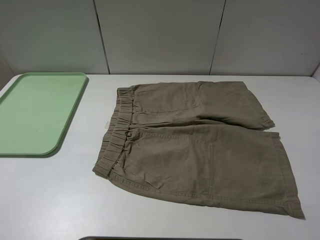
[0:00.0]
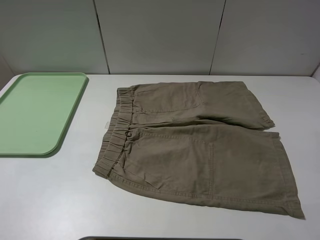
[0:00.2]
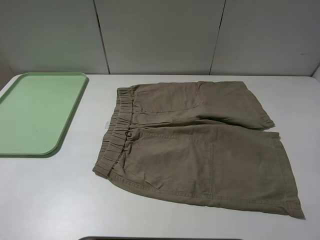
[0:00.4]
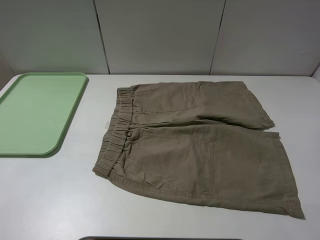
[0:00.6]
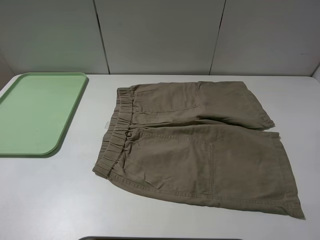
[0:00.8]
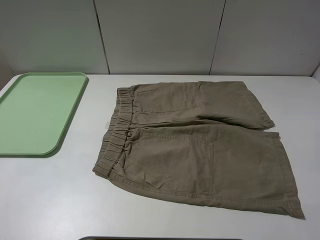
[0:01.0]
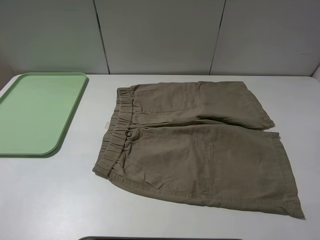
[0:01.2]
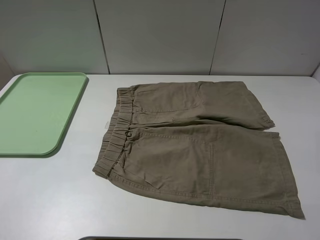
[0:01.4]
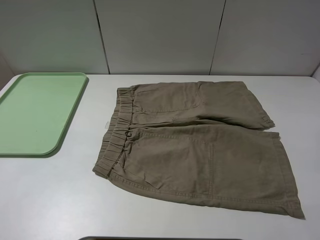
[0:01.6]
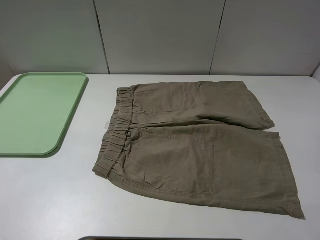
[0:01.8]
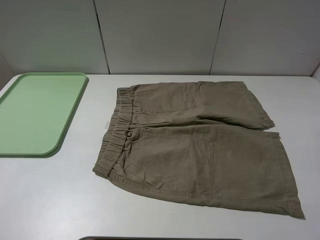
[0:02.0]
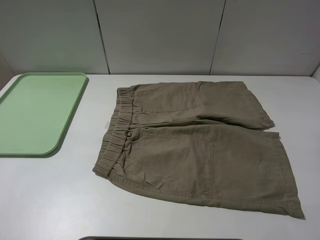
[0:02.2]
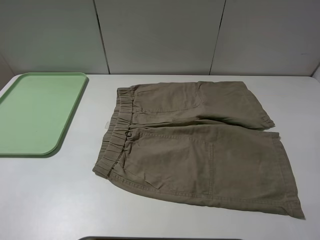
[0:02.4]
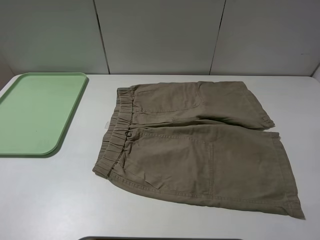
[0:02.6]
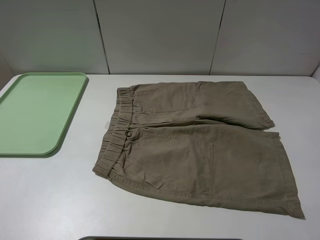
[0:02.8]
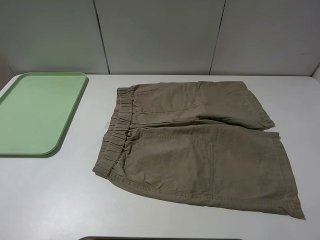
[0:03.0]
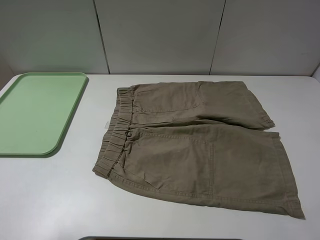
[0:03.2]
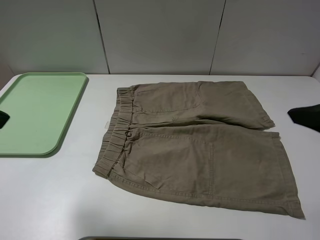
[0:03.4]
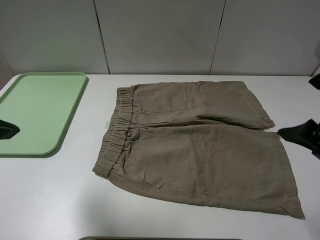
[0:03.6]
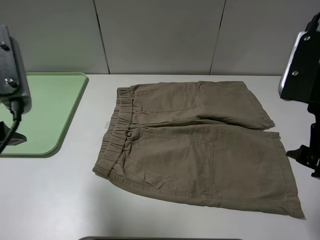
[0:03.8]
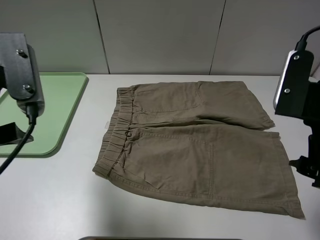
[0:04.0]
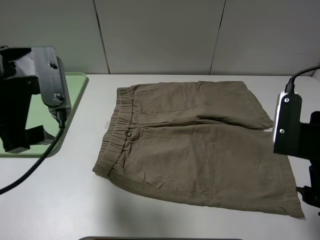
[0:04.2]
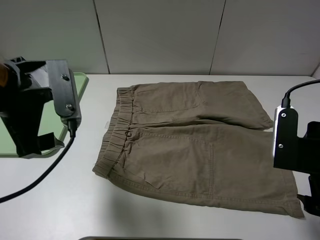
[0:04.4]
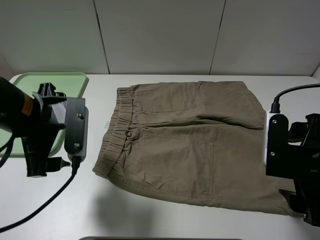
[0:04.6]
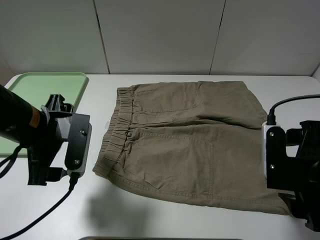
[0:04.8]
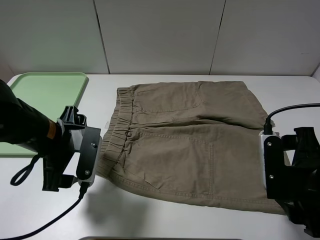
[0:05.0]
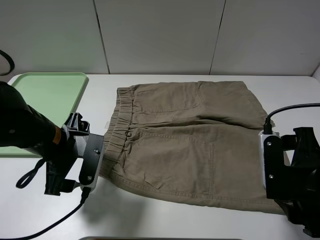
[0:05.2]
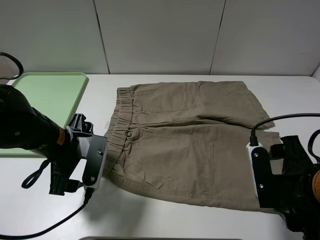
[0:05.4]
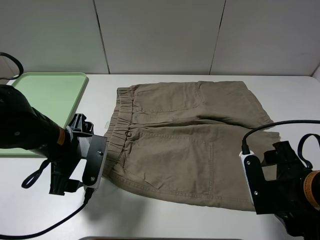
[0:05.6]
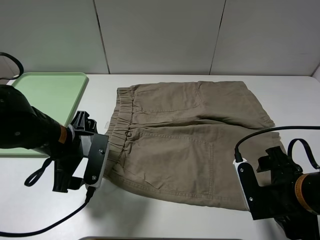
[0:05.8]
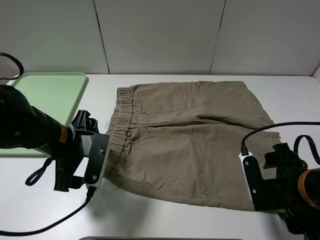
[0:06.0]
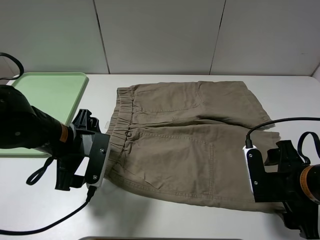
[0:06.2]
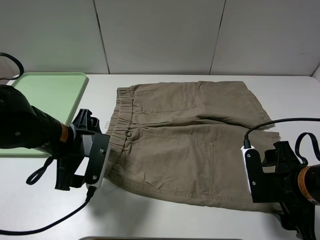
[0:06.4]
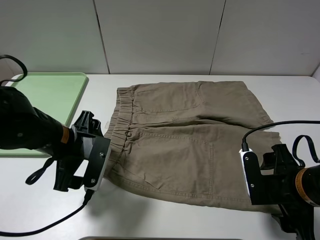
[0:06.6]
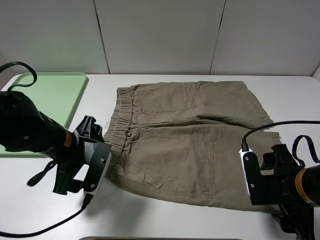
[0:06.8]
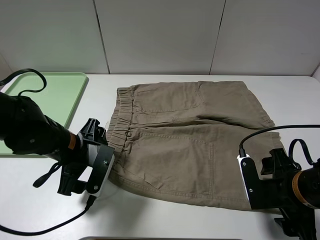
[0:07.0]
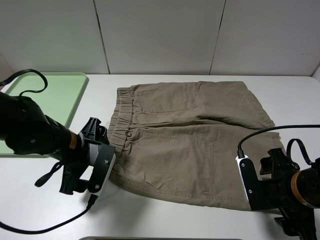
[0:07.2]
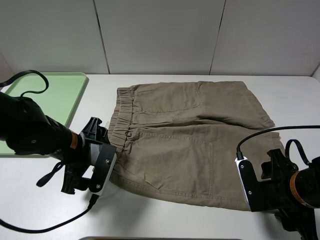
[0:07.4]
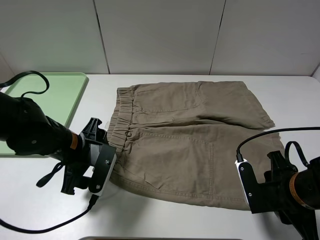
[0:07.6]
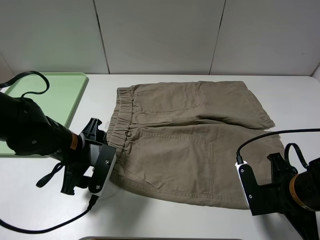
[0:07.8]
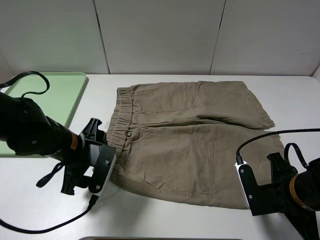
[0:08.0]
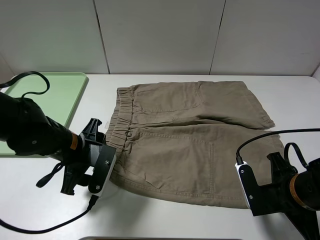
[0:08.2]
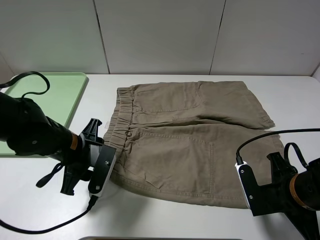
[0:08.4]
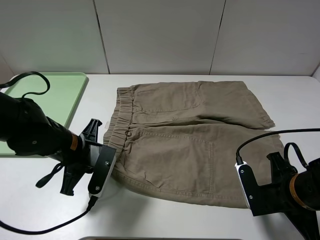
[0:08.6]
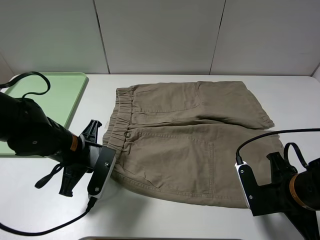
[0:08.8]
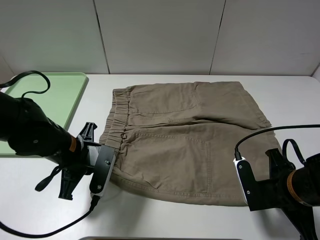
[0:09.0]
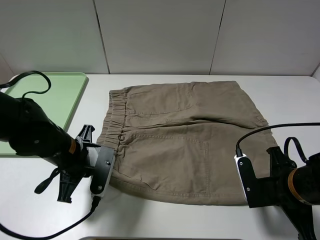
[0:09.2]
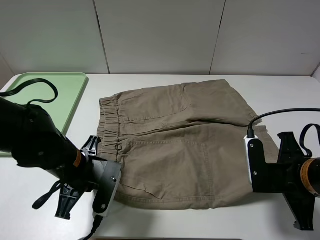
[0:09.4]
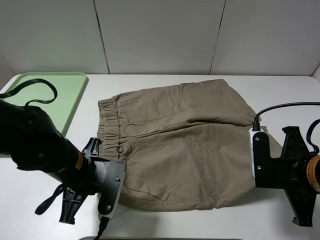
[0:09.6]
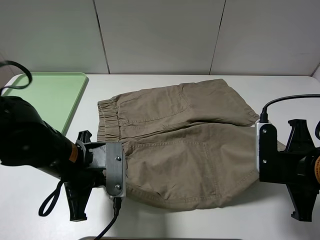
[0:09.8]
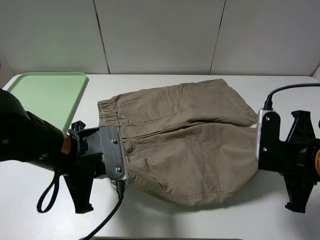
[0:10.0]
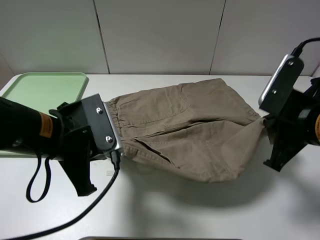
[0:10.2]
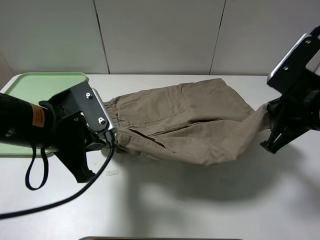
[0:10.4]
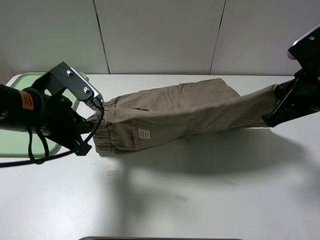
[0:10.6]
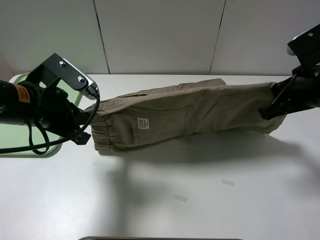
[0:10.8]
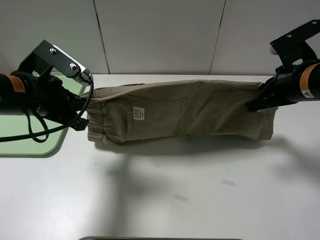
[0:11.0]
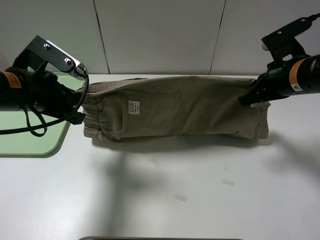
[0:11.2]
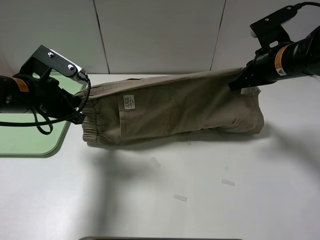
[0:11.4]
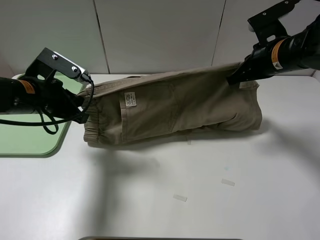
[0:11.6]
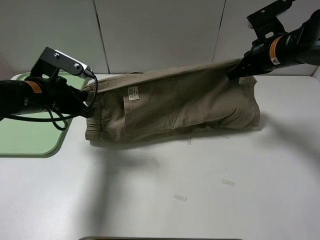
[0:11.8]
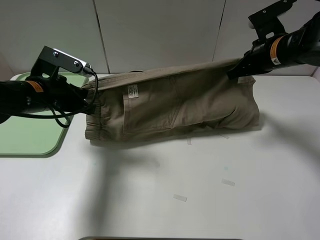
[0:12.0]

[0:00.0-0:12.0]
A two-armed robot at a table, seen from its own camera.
Task of the whole recording: fold the khaki jeans in half with two grippers, then fold them in half again, and use the left claw to place the folded fold khaki jeans on the tray.
Step, 0:00.0 to 0:08.0: Grasp the khaki trousers with the right gripper.
Step, 0:08.2 to 0:08.8: Grasp the khaki trousers with the left gripper.
0:00.0 to 0:01.6: Both grippers stay put.
0:03.0 to 0:04.4: The right gripper is displaced downward and forward by some 15 cm. Meanwhile the left gripper travels forward, to the right and downward by about 20 cm.
0:04.4 to 0:06.0: The right gripper heads downward, covering roughly 5 cm. The left gripper is displaced downward by roughly 10 cm.
0:06.0 to 0:07.6: The right gripper closes its fingers.
0:07.6 to 0:09.0: The right gripper closes. Meanwhile the left gripper closes.
0:09.0 to 0:10.4: The left gripper is displaced upward by about 10 cm; the right gripper travels upward and forward by about 15 cm.
0:10.4 to 0:12.0: The right gripper heads forward, covering some 15 cm. Meanwhile the left gripper is displaced forward and to the left by some 10 cm.

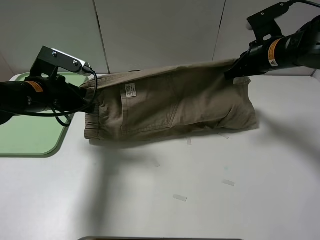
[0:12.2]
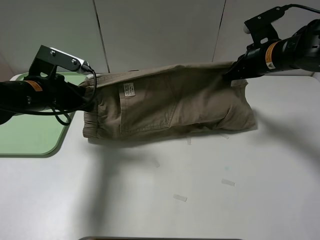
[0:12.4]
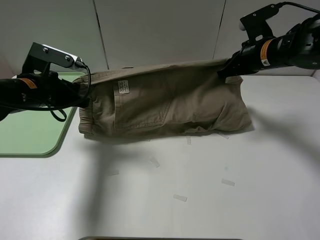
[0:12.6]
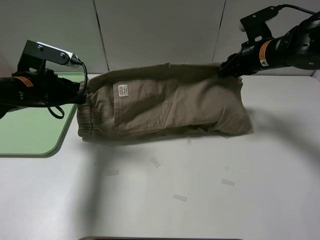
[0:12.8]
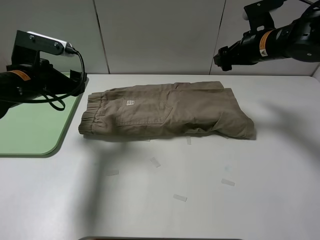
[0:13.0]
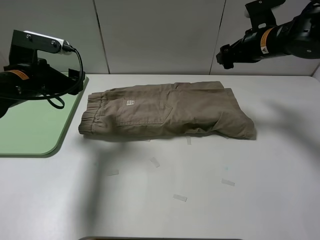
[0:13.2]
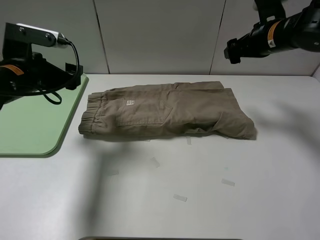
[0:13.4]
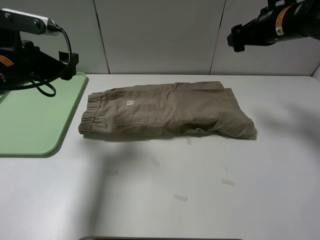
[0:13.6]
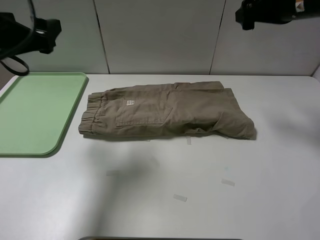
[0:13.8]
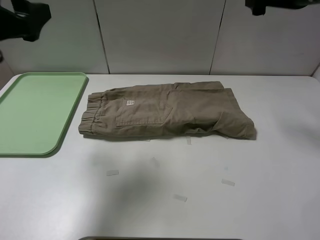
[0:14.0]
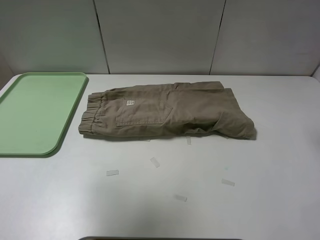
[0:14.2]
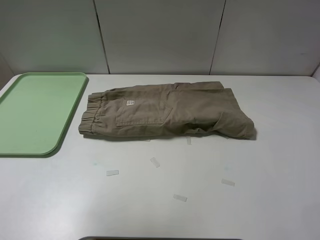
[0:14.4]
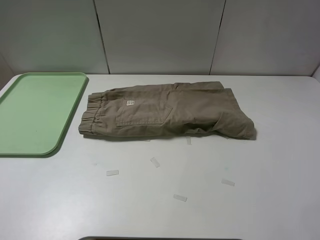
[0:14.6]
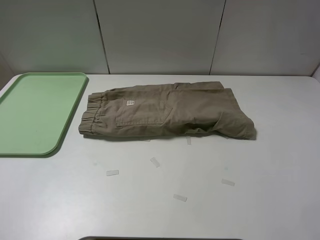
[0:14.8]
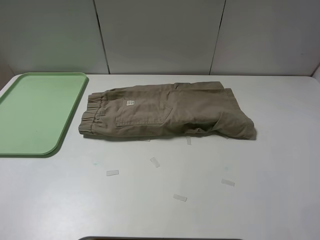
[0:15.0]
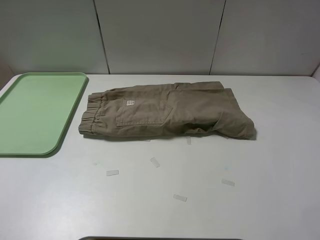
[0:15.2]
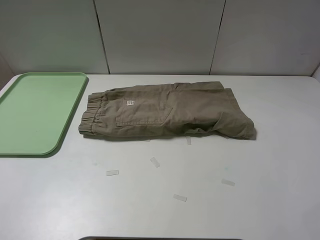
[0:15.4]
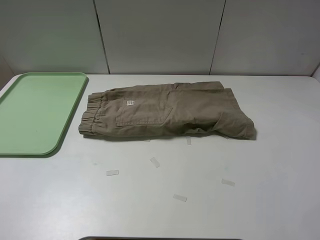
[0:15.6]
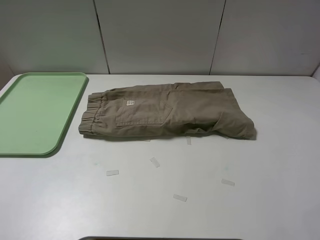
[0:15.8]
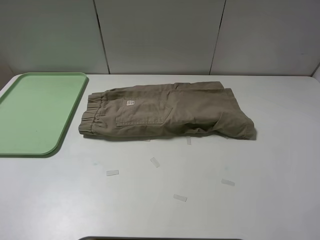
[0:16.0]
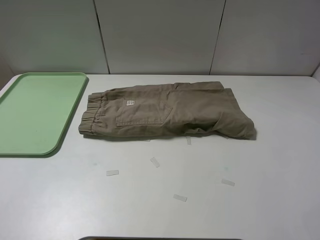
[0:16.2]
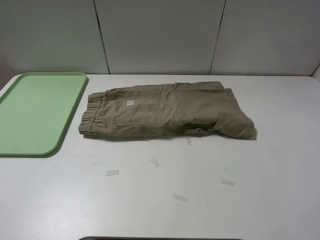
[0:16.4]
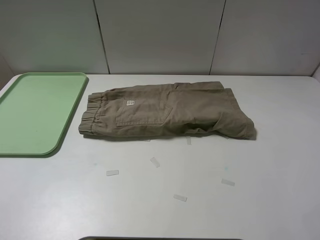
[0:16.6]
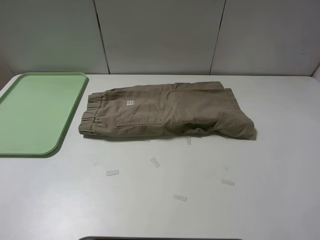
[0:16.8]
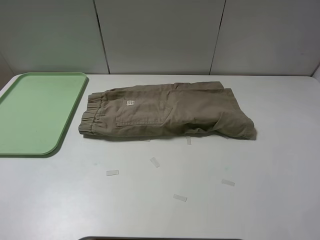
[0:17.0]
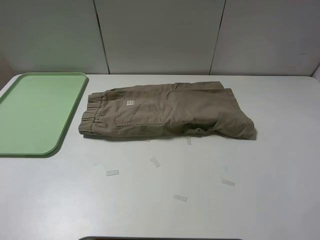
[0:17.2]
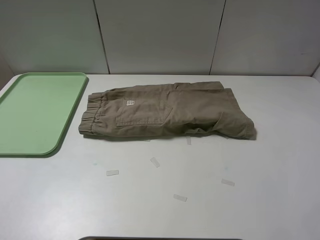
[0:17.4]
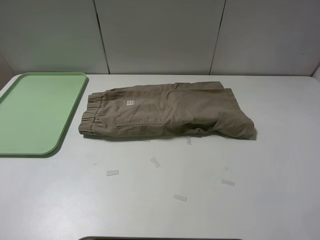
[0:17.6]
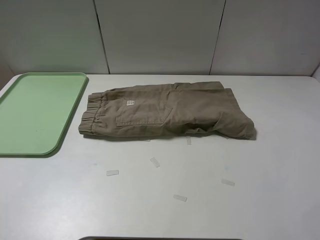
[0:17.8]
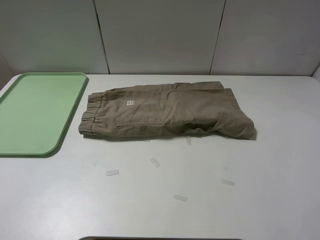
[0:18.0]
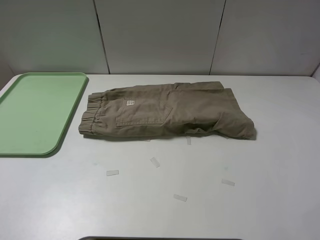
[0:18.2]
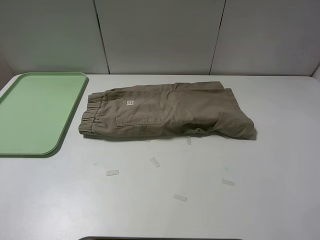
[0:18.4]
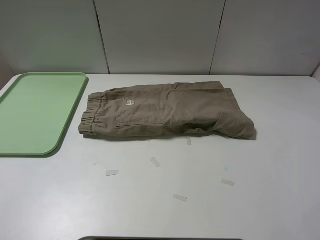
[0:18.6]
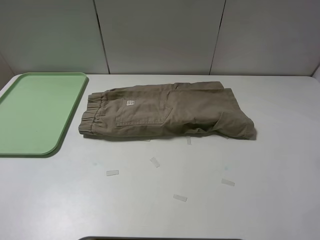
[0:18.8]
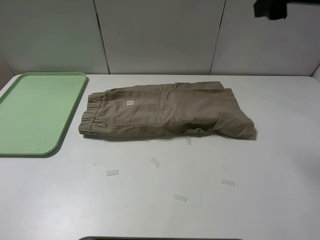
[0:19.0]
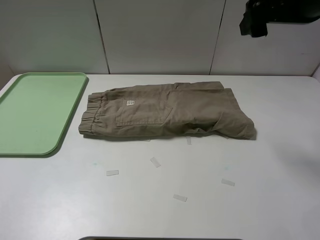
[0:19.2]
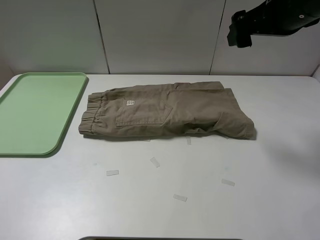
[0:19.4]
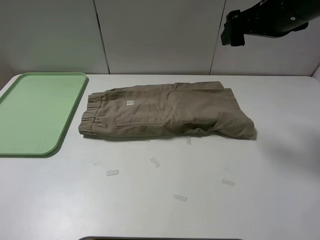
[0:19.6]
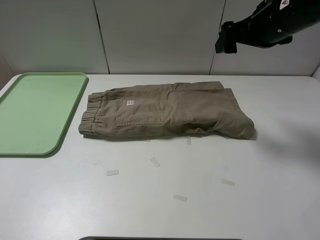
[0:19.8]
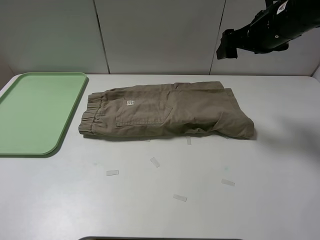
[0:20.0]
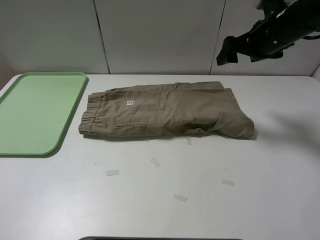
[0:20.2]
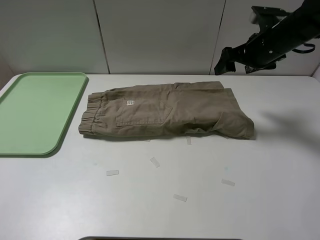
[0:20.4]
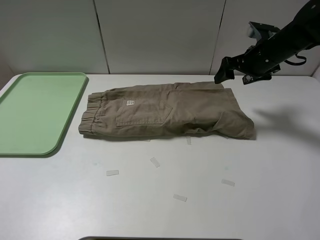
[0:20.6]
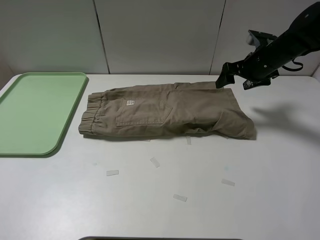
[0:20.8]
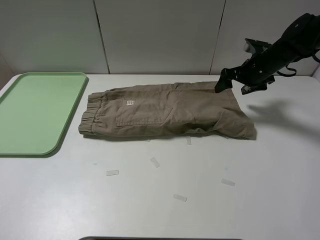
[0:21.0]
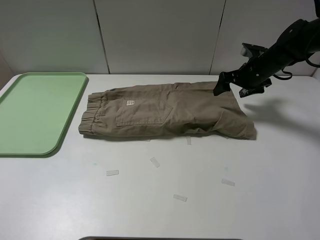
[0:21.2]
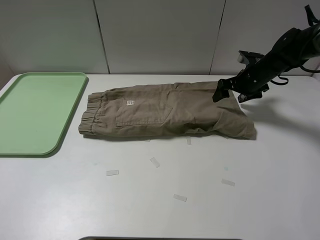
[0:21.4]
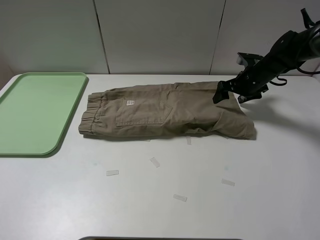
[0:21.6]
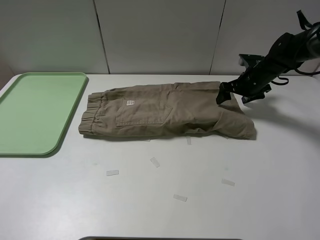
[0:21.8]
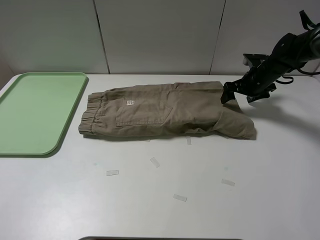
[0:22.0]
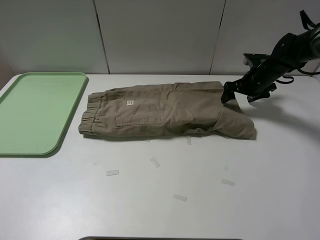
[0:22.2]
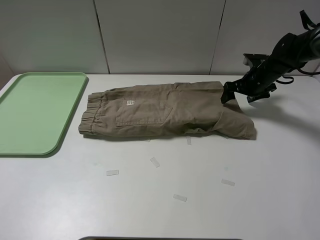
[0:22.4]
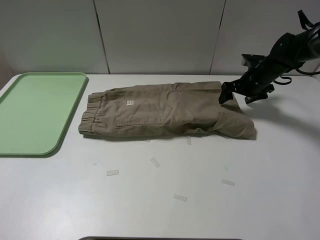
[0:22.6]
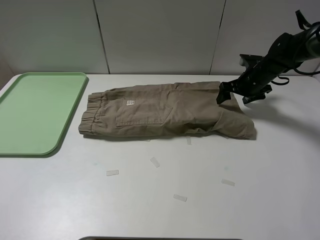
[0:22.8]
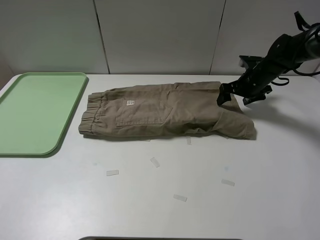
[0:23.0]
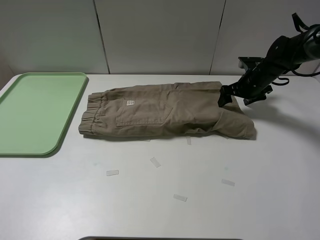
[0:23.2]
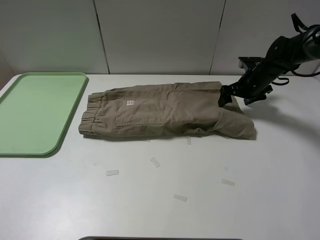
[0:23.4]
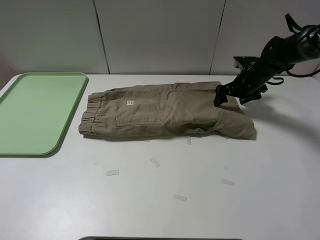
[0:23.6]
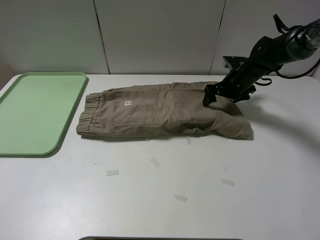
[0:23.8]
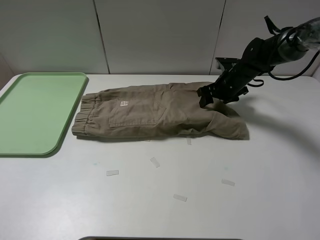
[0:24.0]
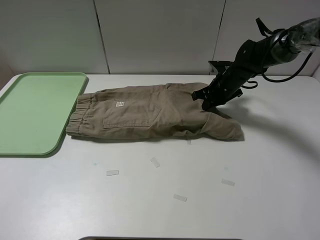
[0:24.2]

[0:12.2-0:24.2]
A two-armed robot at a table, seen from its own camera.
Task of the whole recording: fold the khaki jeans in half with two grippers, then fold them in half again, and use the left claw to place the folded fold khaki jeans on the tray.
0:12.2 to 0:13.8: The two grippers go some 10 cm upward. The right gripper opens; the left gripper opens.
0:13.8 to 0:15.2: The left gripper goes approximately 25 cm backward, while the right gripper travels backward and upward by some 25 cm.
0:18.2 to 0:19.8: The right gripper goes some 20 cm downward and forward.
0:19.8 to 0:21.2: The right gripper shifts approximately 20 cm downward and forward.
0:21.2 to 0:22.6: There are only small adjustments of the grippers.
0:22.6 to 0:24.2: The right gripper shifts roughly 10 cm to the left, and closes.
